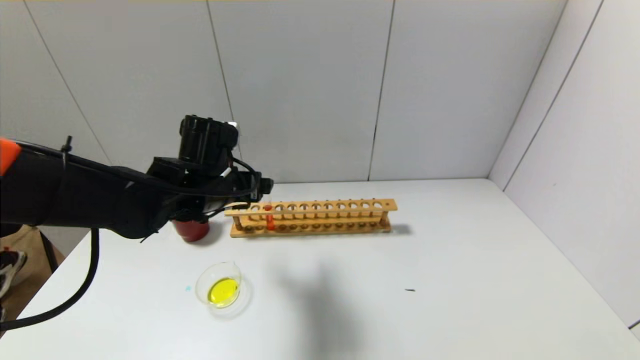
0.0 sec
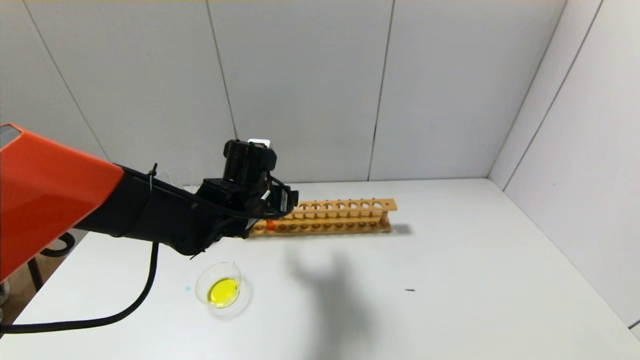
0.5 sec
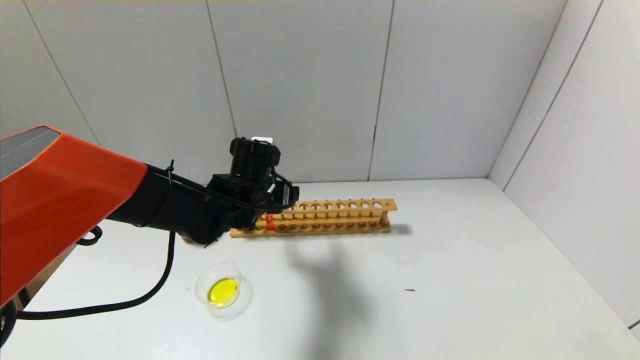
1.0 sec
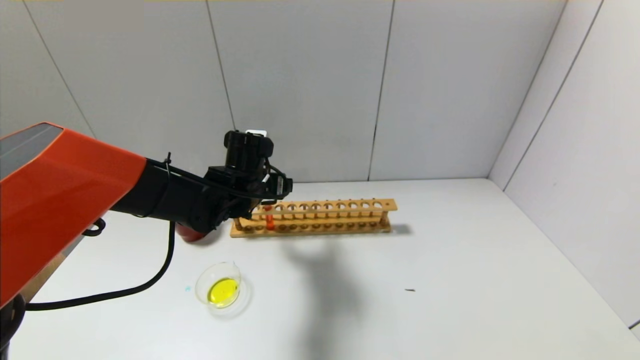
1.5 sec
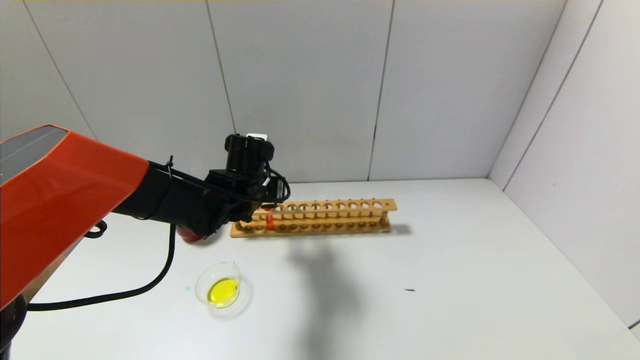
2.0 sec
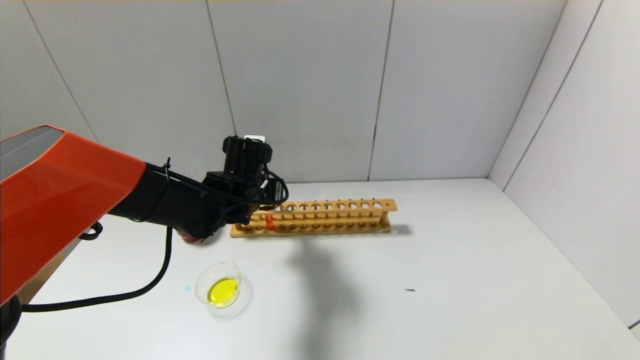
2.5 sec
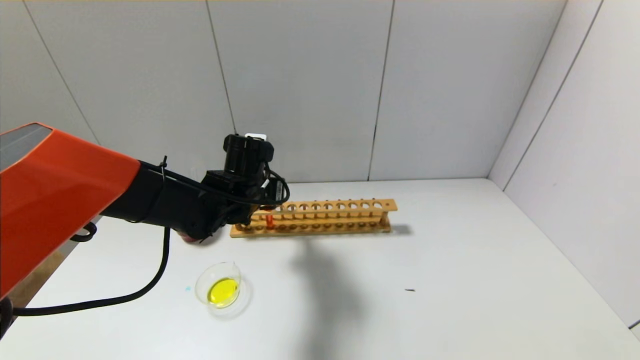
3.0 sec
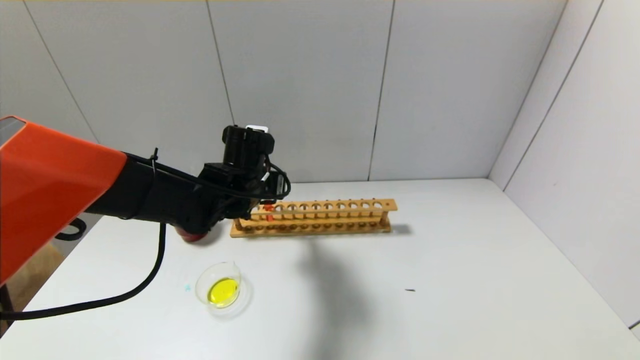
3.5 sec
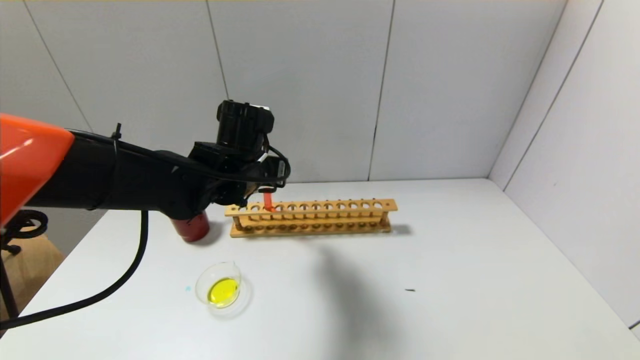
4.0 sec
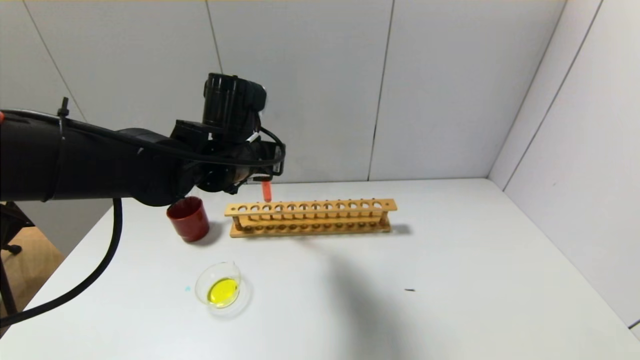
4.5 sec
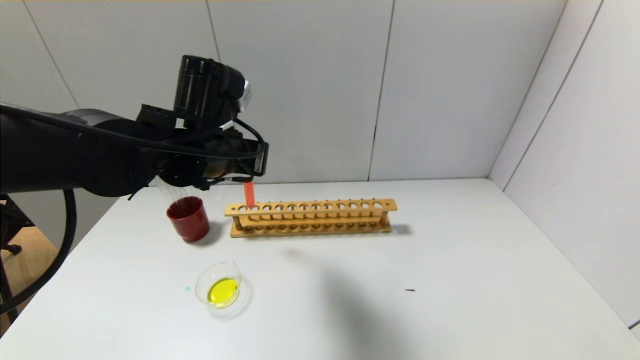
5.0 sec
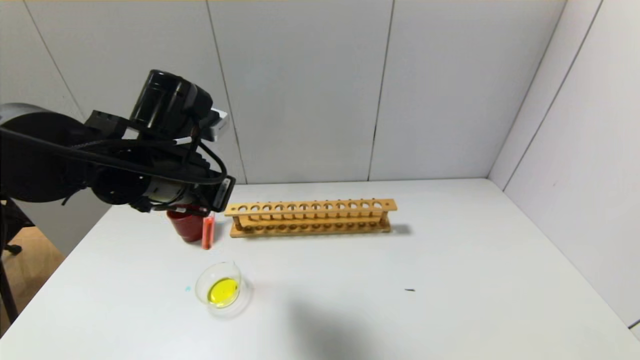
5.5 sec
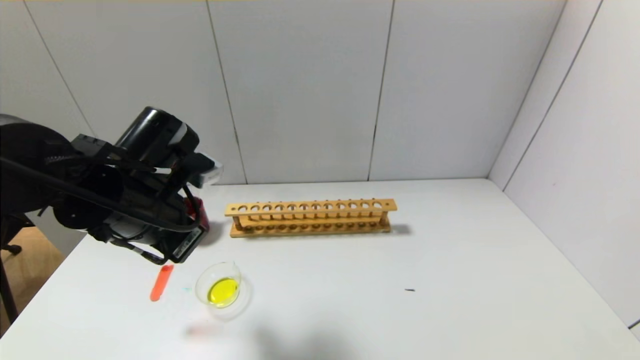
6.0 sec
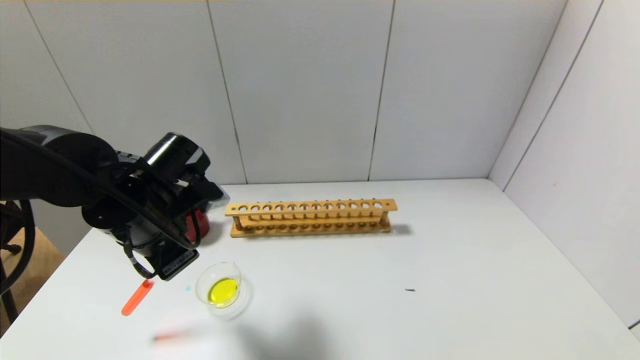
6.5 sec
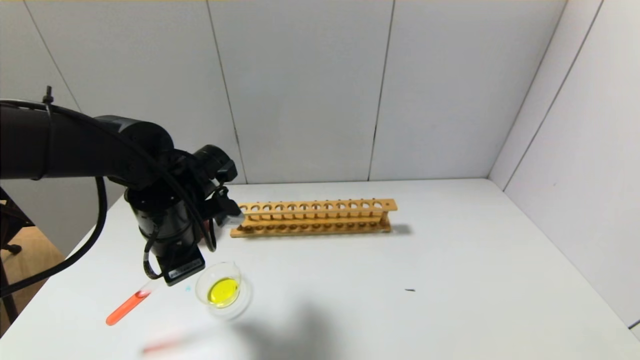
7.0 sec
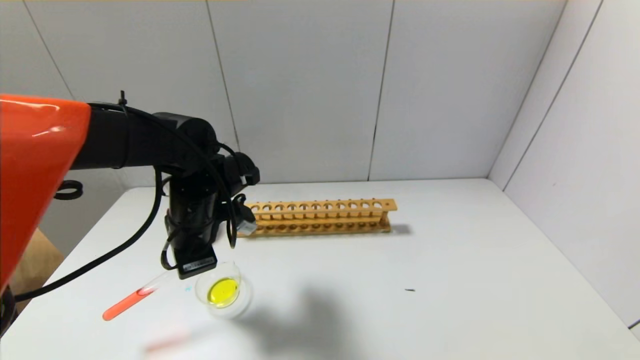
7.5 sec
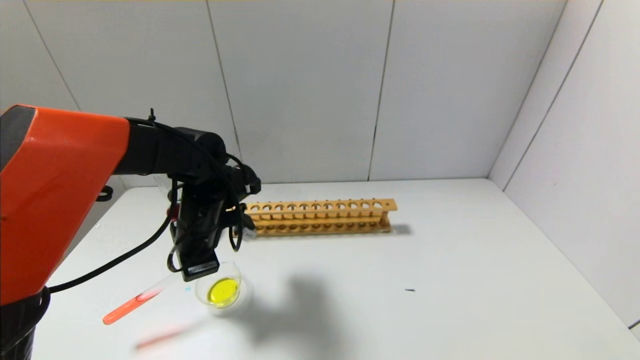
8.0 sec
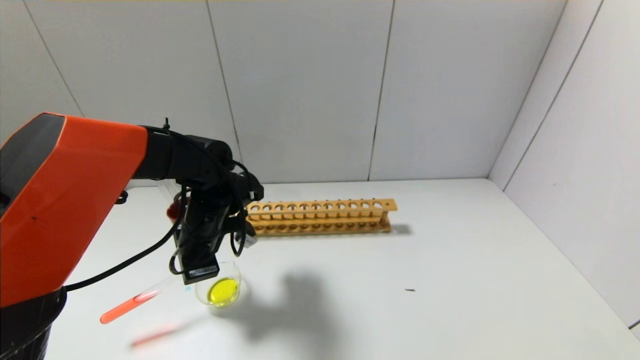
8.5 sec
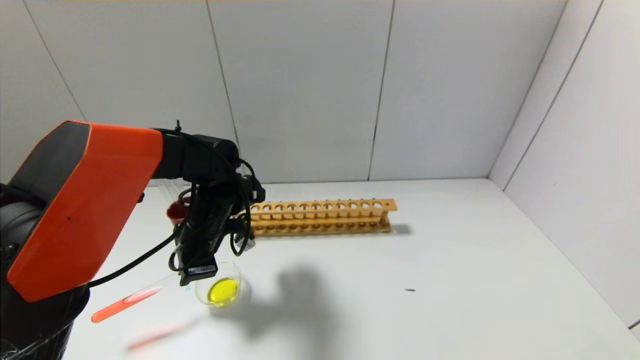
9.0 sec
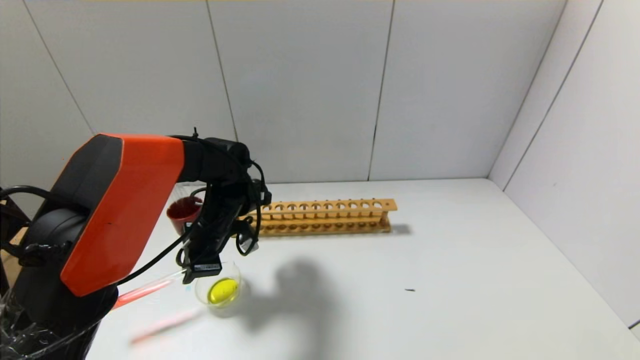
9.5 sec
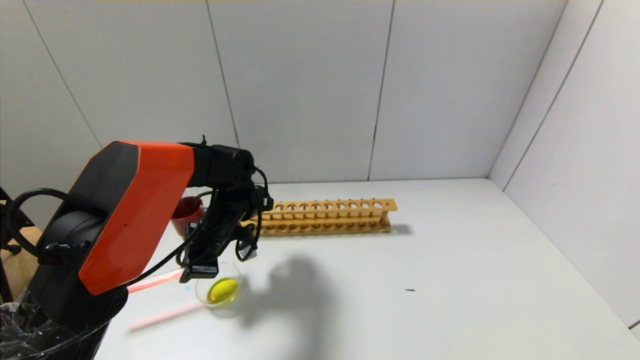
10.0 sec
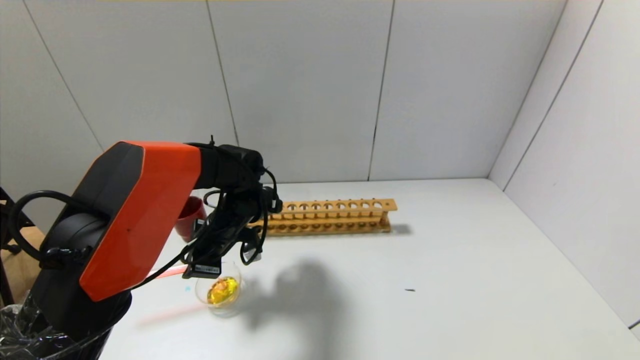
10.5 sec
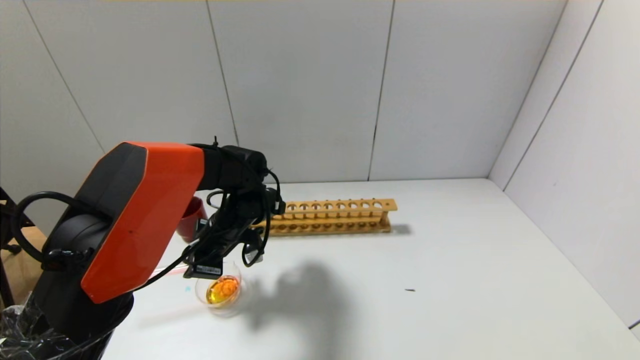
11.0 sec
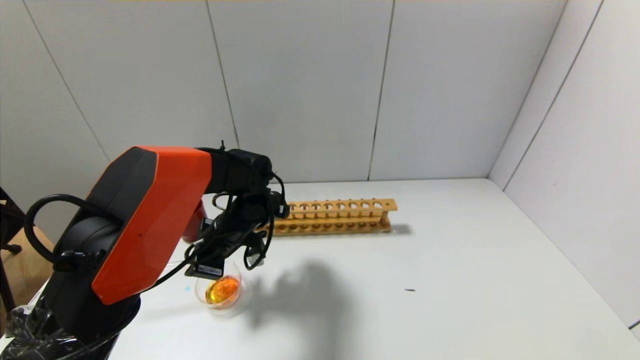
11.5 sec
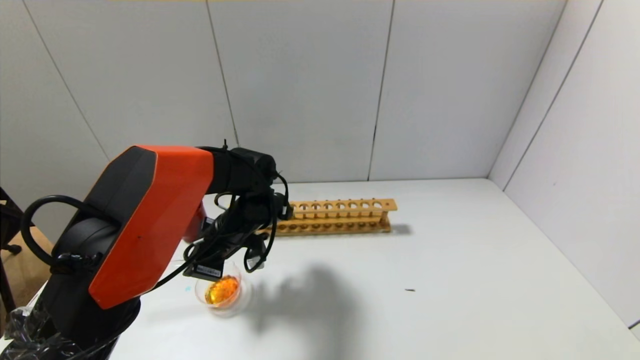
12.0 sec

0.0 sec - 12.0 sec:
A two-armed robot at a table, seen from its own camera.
Step, 0.0 sec - 2.0 sec: Grasp the red reagent with the left gripper.
0.0 sec - 2.0 sec: The left gripper shifts about 5 cm forward, and closes.
2.0 sec - 4.0 sec: The left gripper shifts about 5 cm upward.
4.0 sec - 6.0 sec: The left gripper moves backward and to the left, approximately 15 cm.
6.0 sec - 8.0 sec: The left gripper goes some 10 cm forward and downward.
8.0 sec - 10.0 sec: The left gripper ends up about 5 cm from where it was.
10.0 sec - 12.0 sec: There are only small adjustments of the grippers.

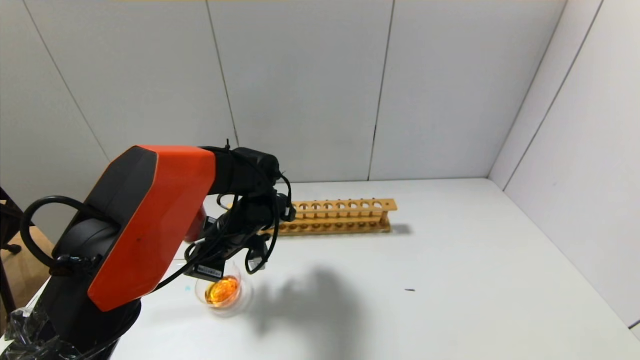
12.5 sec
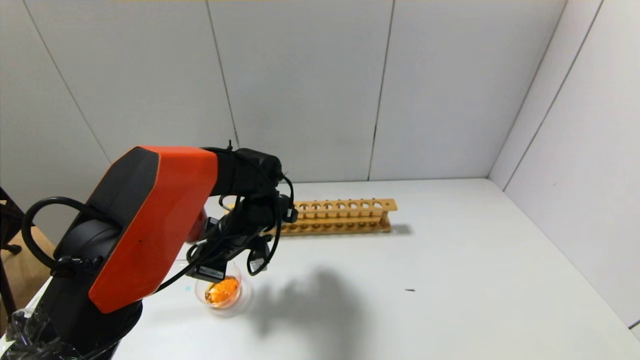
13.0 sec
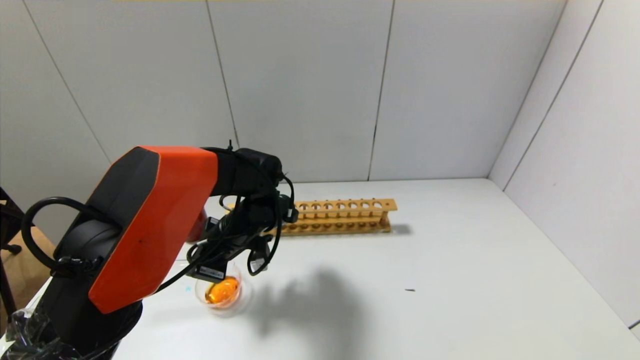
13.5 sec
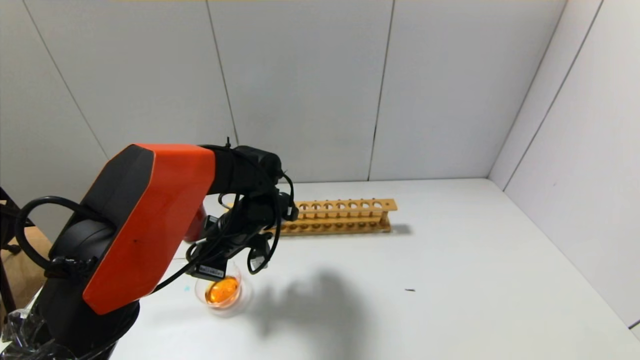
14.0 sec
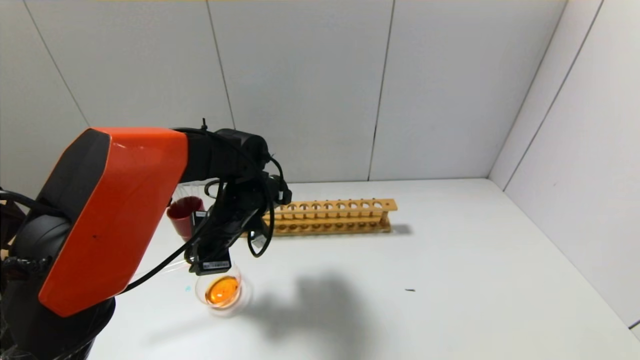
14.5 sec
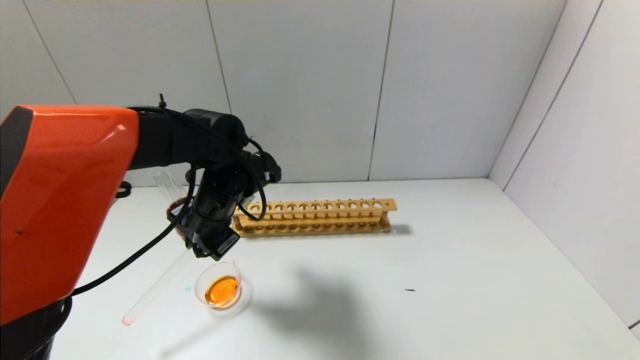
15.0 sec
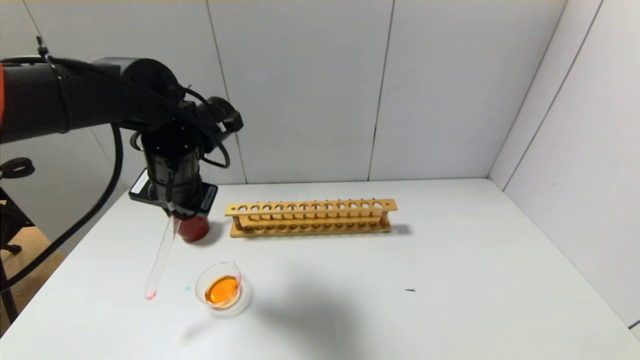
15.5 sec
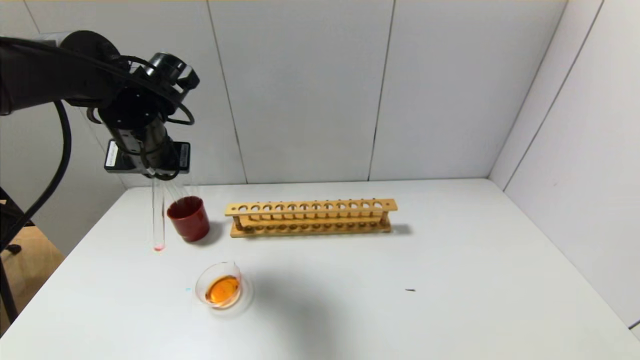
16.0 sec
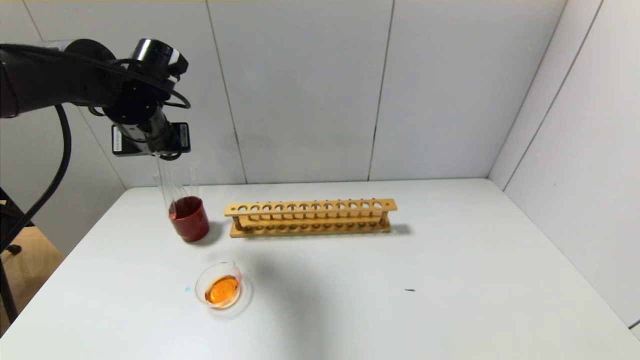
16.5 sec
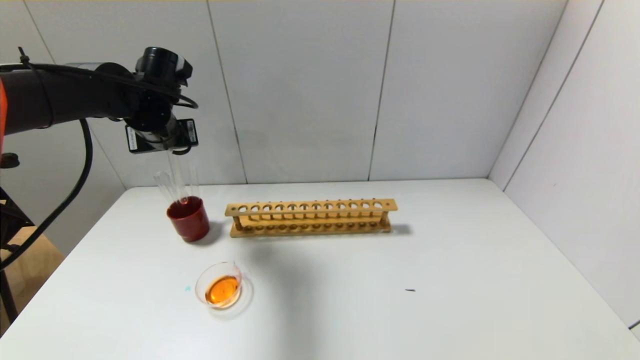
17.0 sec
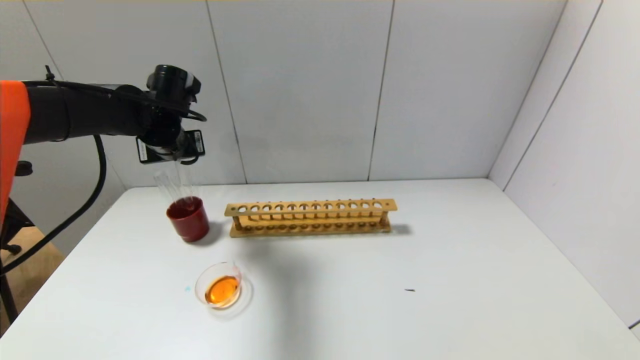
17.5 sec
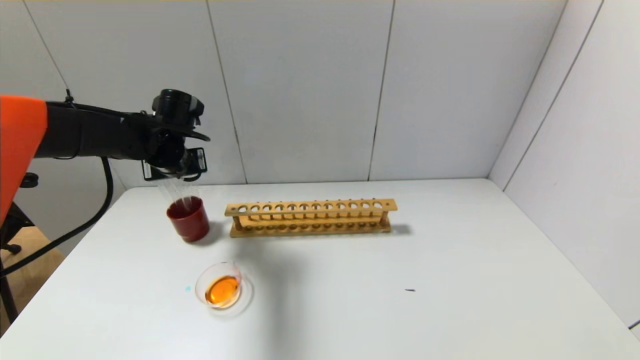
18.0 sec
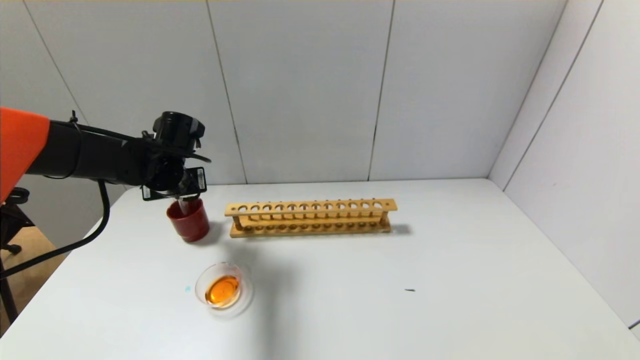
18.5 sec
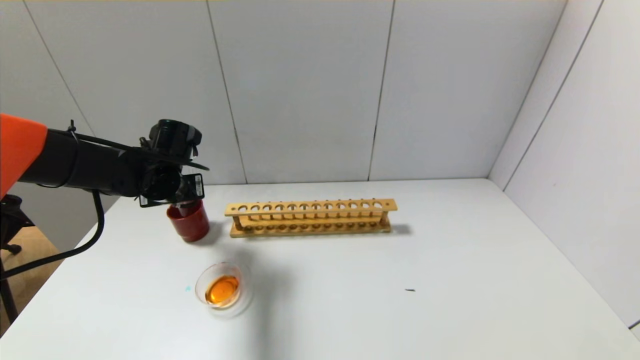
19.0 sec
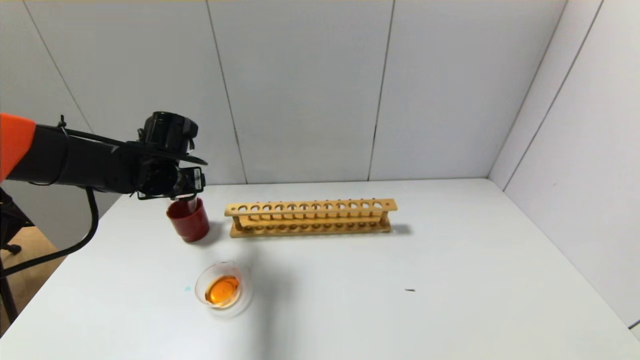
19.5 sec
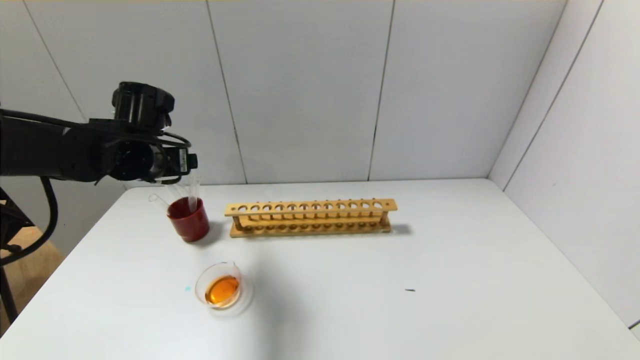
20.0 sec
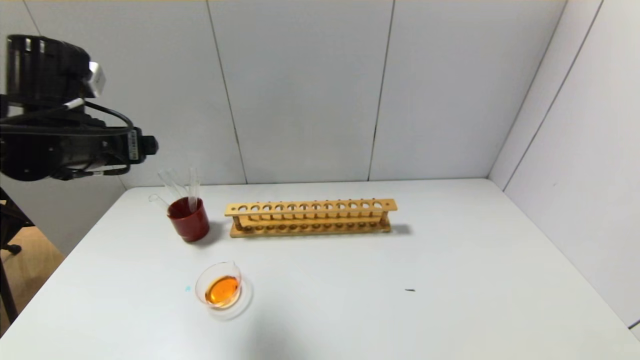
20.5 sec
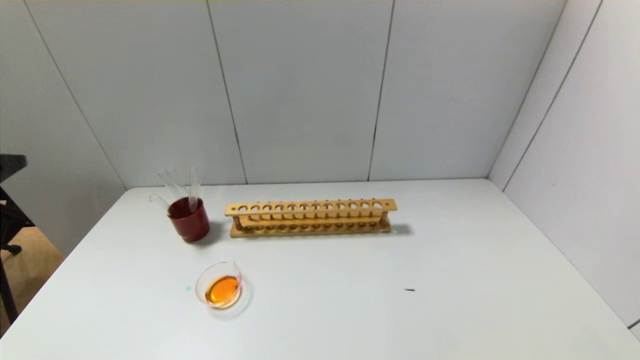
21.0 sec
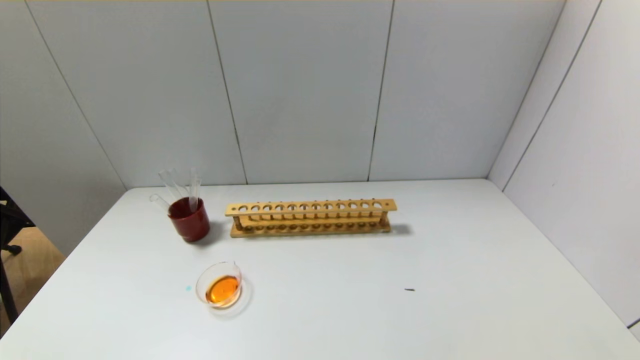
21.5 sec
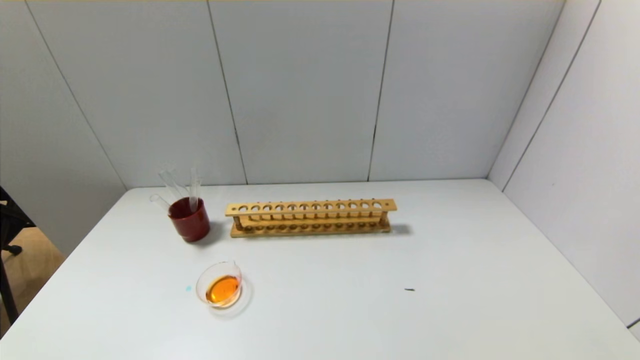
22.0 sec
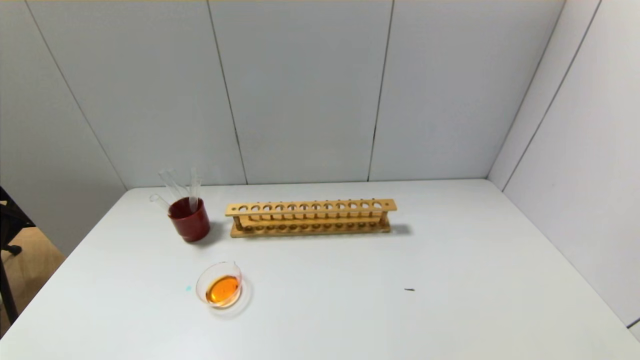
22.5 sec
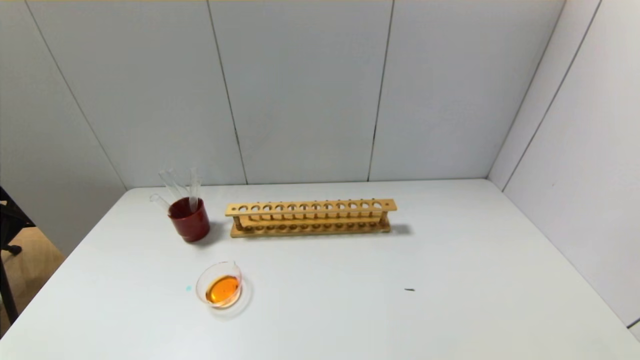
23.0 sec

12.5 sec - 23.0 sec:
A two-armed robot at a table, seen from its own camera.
Step, 12.5 sec - 14.5 sec: Pour the red reagent into the graduated cylinder with the left gripper.
Step, 15.0 sec - 19.0 sec: Place the test tube into the brown cup with the left gripper.
14.5 sec - 16.5 sec: The left gripper goes roughly 20 cm upward and to the left.
16.5 sec - 19.0 sec: The left gripper moves downward, some 10 cm.
19.0 sec - 21.0 sec: The left gripper shifts some 30 cm backward and upward, and opens.
